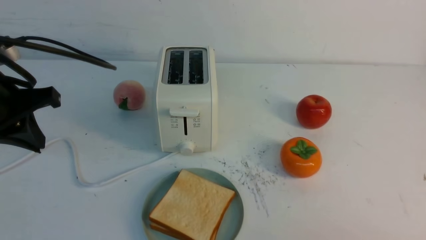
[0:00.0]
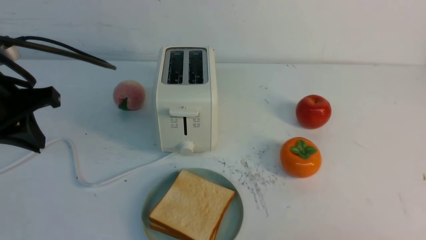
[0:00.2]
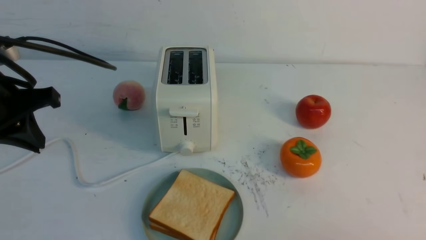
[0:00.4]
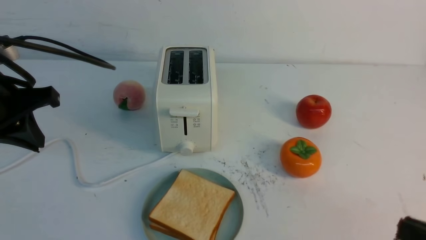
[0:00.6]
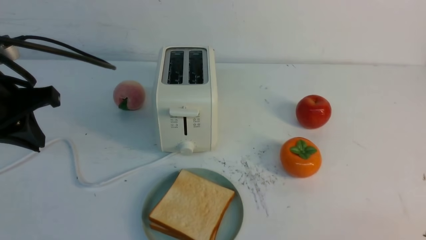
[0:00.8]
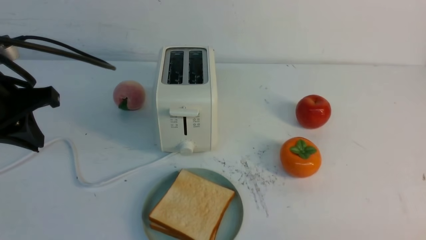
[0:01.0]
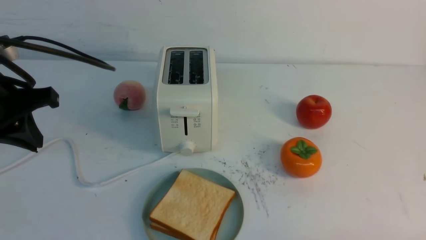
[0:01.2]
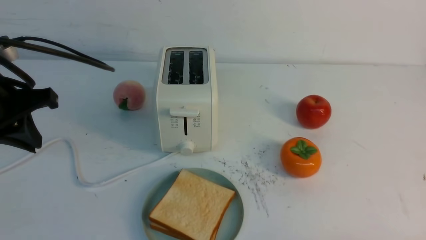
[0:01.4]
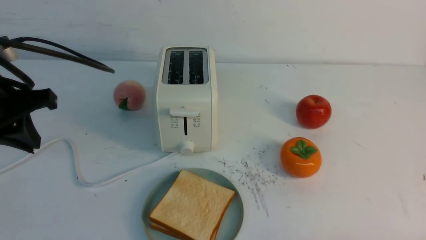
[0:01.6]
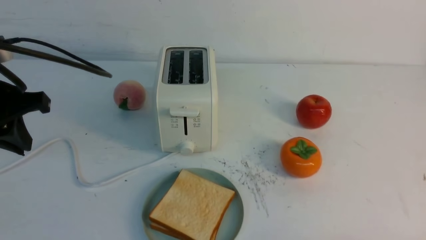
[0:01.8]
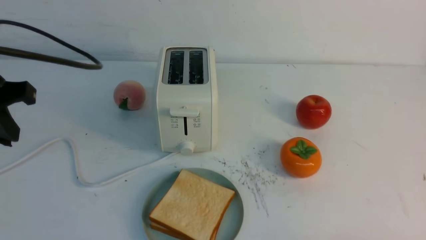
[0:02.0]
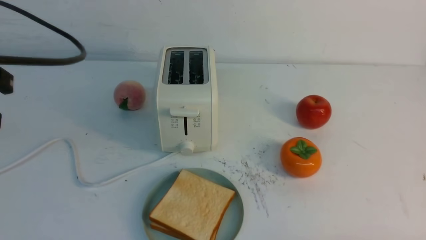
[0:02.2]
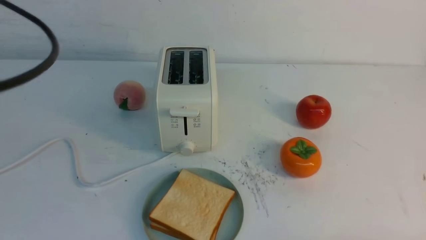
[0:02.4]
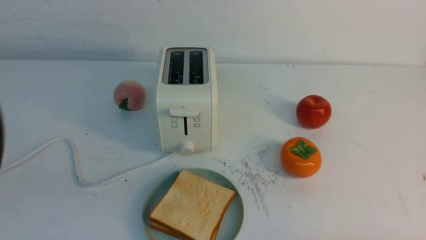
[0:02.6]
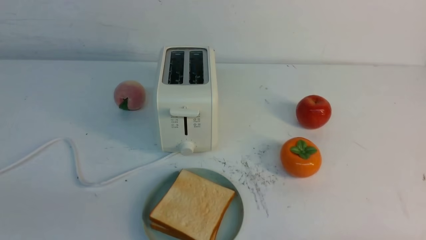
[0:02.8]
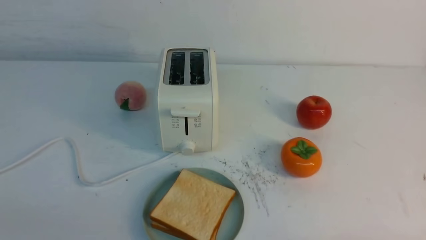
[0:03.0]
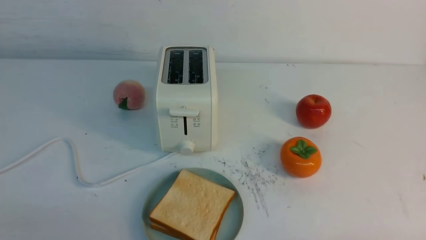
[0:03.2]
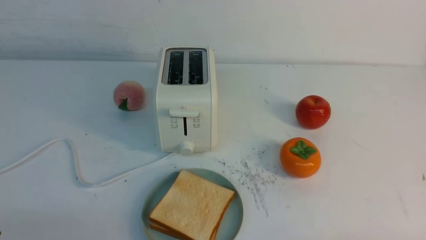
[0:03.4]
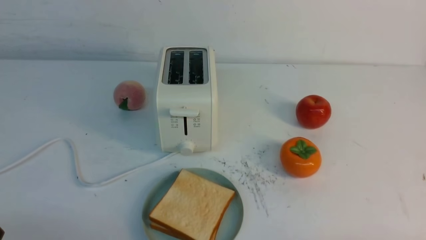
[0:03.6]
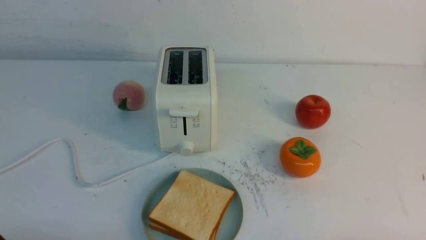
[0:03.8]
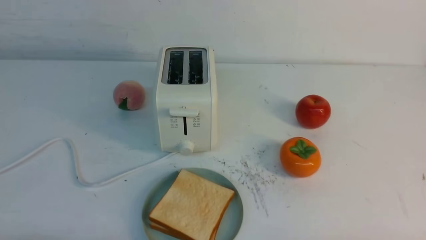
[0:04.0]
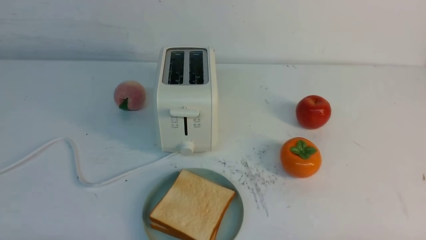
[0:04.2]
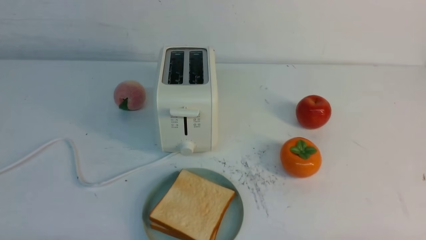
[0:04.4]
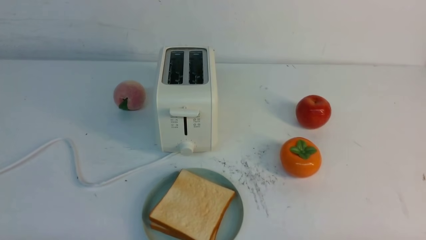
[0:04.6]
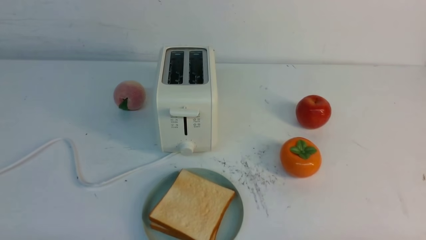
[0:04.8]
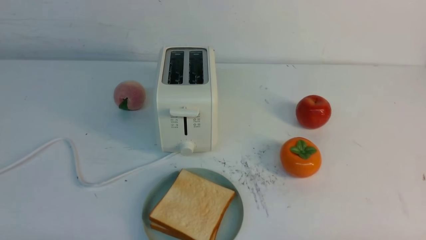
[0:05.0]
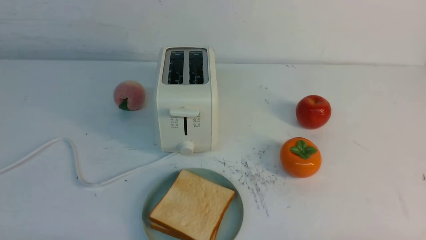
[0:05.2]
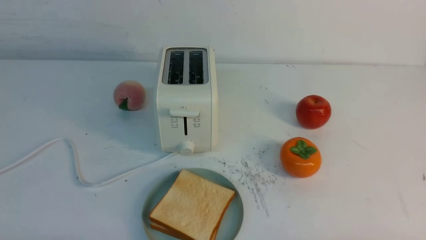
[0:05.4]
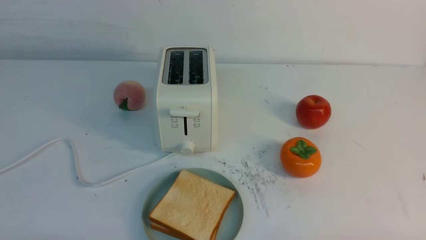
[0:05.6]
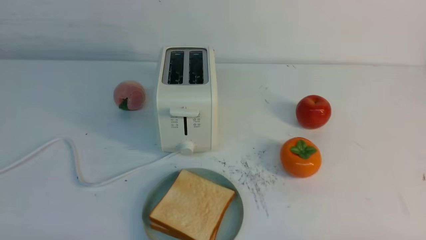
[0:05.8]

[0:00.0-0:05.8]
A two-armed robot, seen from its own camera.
Task of the whole recording: take toasted bread from bread machine on white table place on plate.
0:01.4 to 0:02.8: The left gripper moves backward, about 25 cm.
0:04.4 to 0:05.8: The two grippers keep their place.

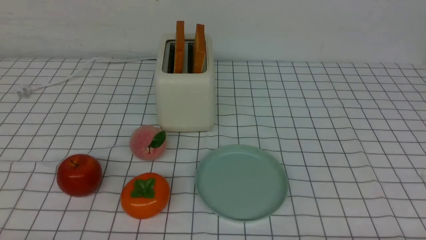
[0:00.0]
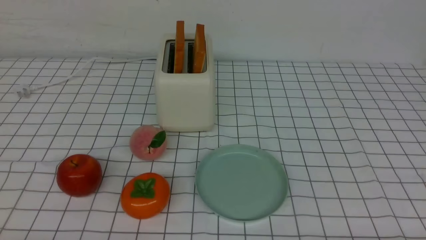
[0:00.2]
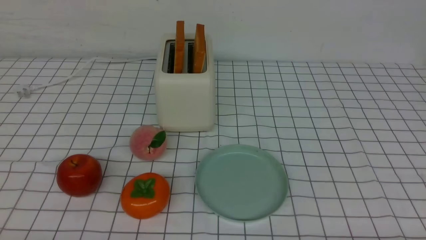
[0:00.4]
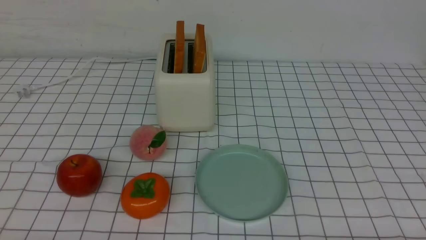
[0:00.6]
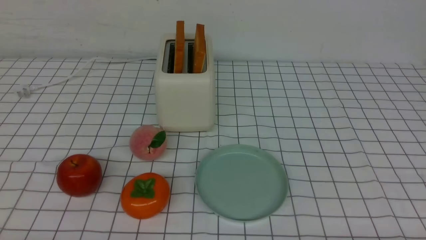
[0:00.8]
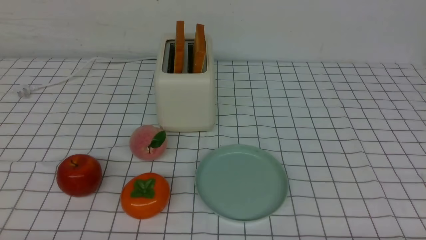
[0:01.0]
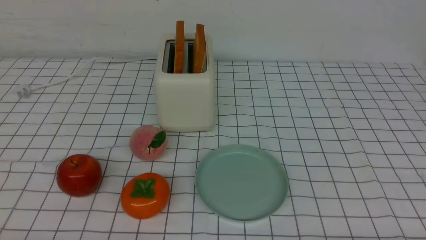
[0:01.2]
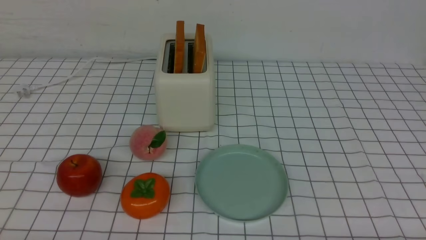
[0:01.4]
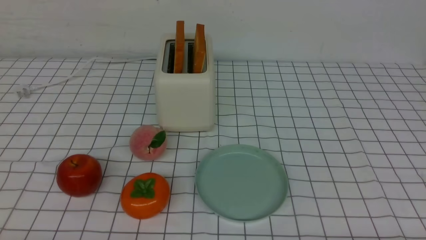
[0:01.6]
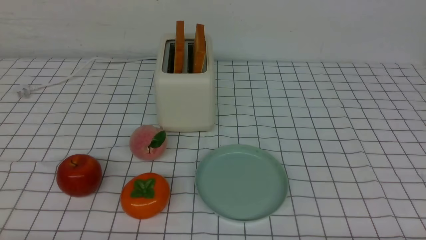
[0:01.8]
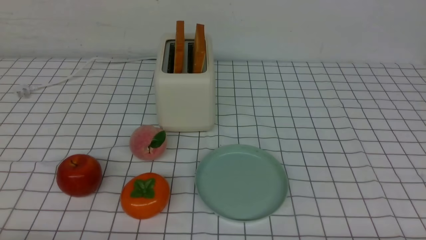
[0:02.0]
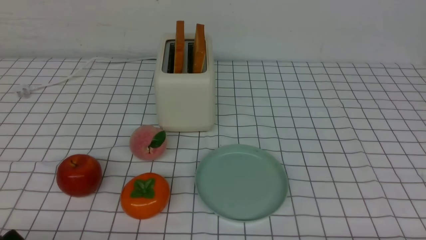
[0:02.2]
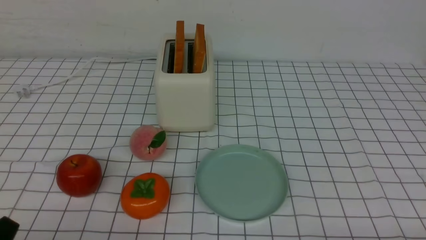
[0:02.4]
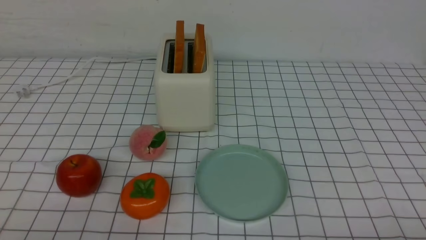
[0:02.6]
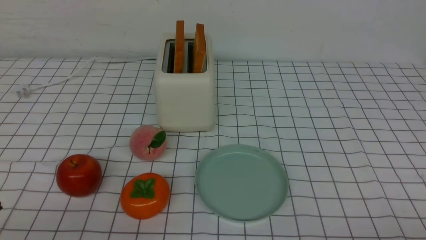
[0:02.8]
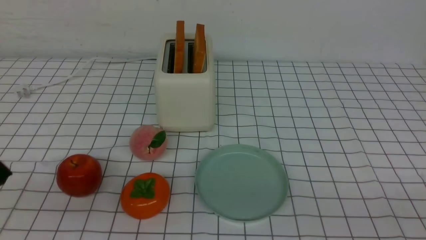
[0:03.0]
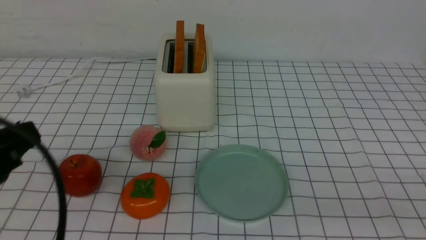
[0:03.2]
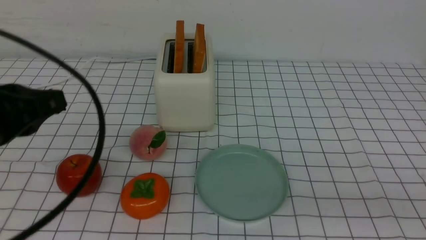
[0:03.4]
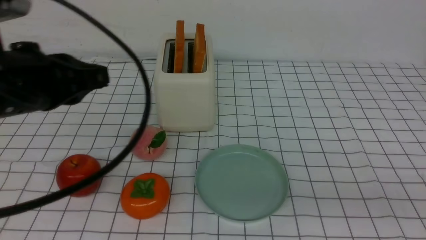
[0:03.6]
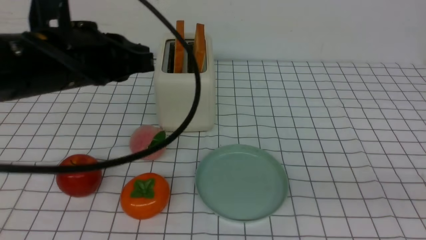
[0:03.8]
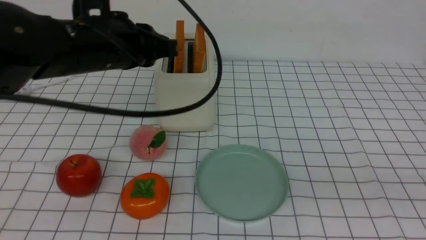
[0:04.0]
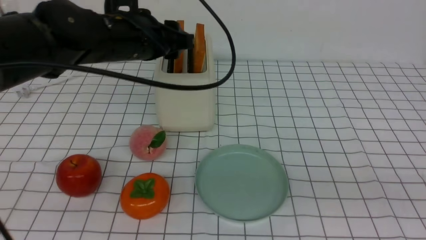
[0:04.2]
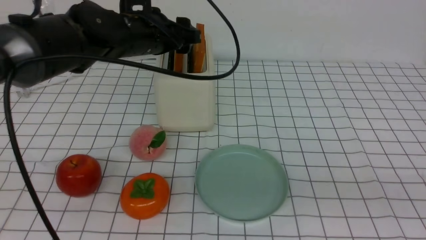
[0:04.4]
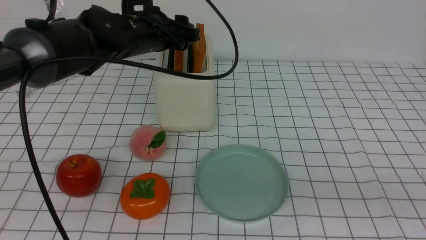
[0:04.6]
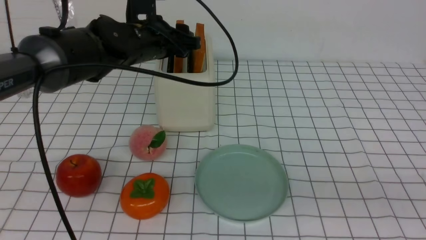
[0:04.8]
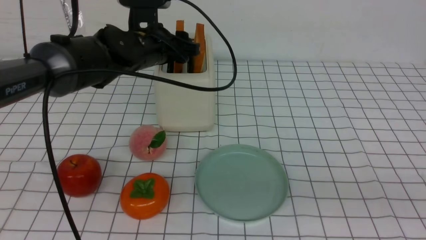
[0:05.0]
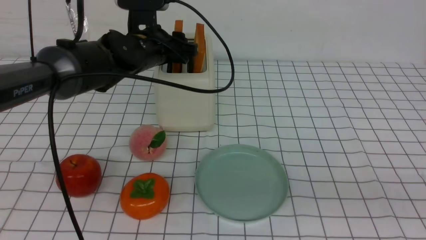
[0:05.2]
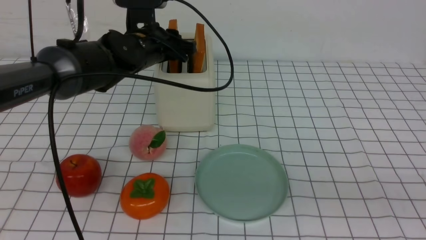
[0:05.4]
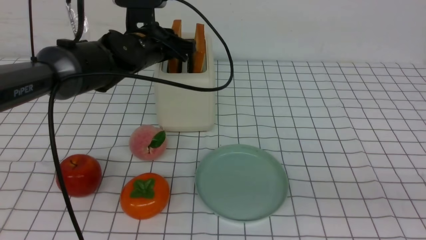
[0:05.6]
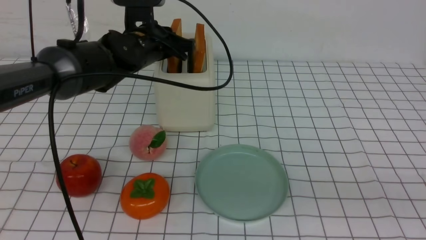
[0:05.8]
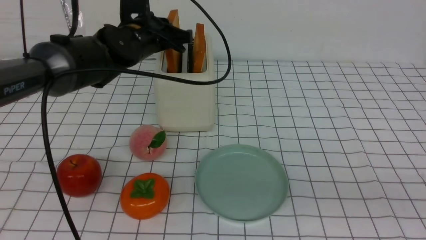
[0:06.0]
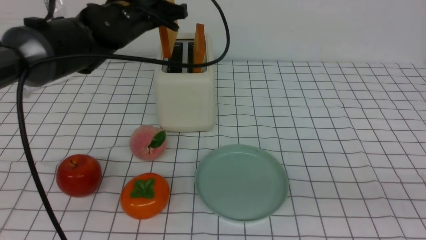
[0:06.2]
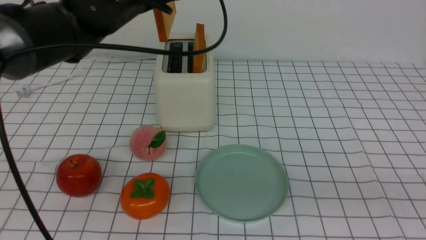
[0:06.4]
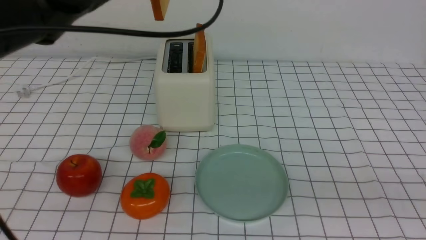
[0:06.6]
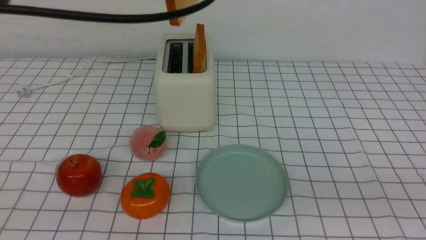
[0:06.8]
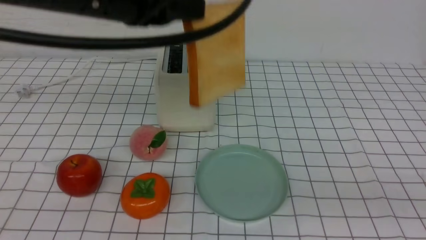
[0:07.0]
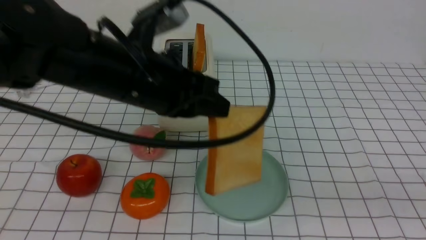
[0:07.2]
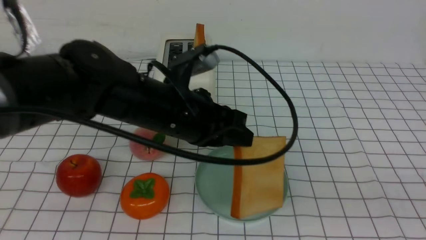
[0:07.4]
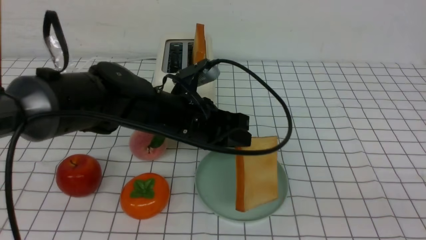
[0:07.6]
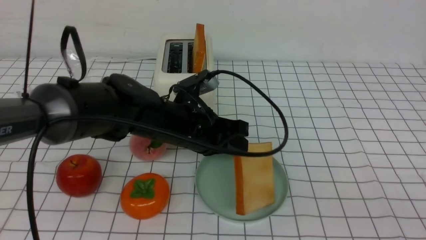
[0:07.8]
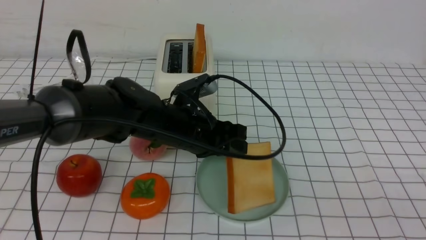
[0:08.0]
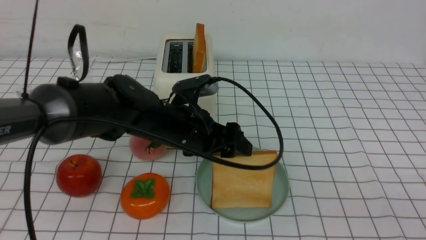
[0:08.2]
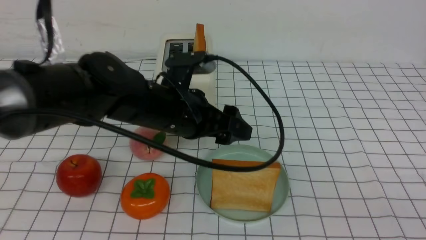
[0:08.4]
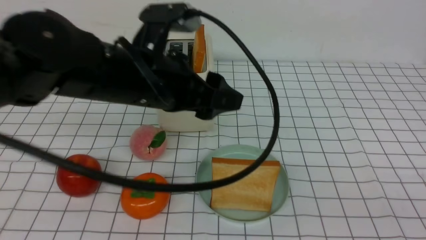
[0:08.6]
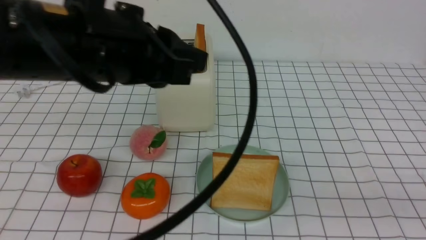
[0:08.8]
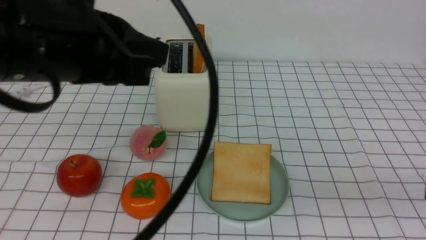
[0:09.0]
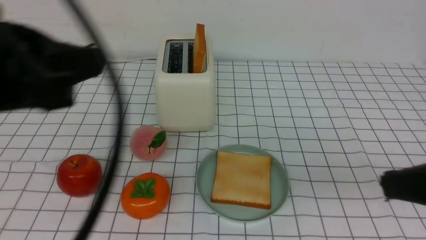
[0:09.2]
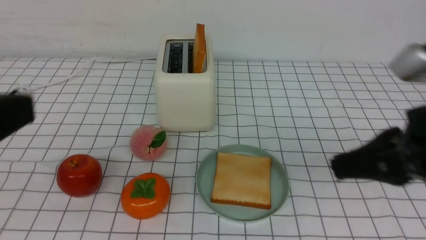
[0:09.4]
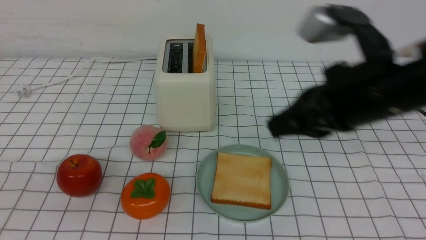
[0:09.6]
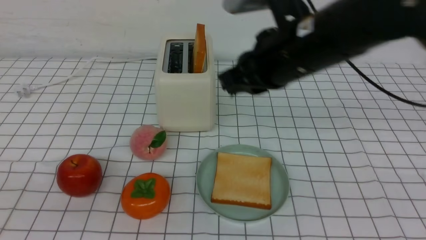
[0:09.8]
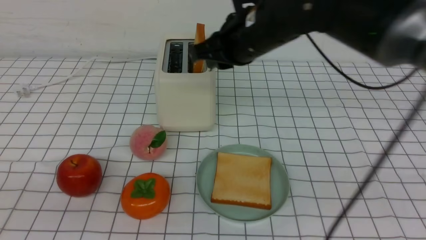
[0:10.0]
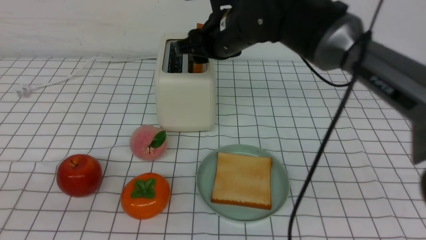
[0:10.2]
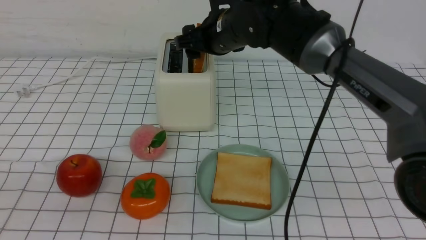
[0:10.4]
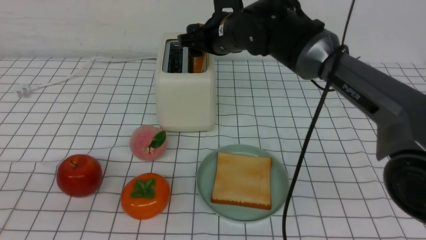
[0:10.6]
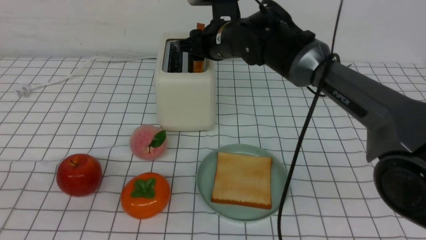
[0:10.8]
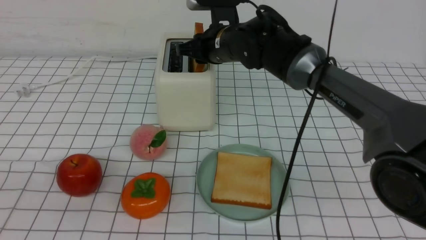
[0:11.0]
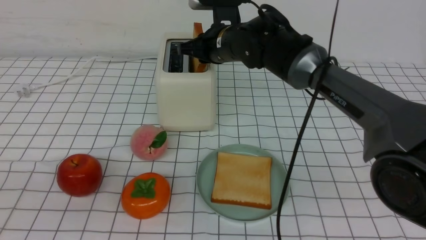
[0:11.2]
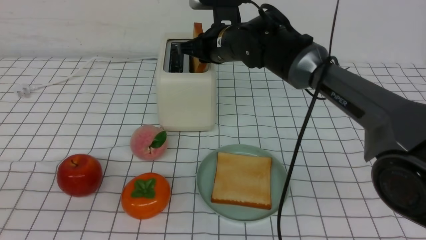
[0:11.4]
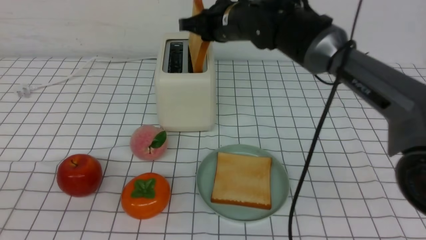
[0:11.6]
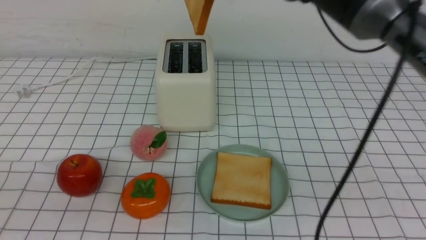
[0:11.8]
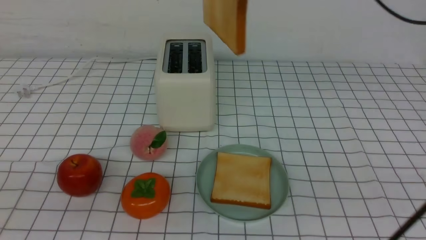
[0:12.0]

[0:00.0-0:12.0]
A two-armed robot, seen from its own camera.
Task of the whole recording: take toasted bread from bread machine on white checkered table place on plate.
Step, 0:00.0 to 0:06.2: use the left arm to take out a slice of bread.
Step, 0:06.4 to 0:08.8: use the left arm to put a slice of bread into the empty plate.
Step, 0:09.2 to 0:11.6: use the right arm to take out a slice of bread.
0:00.0 to 0:01.6: Both grippers stay about where they are.
0:01.6 to 0:03.0: The left gripper heads upward, covering some 10 cm, and closes.
0:03.0 to 0:04.4: The right gripper heads upward, covering about 10 cm. Meanwhile the left gripper travels forward by about 35 cm, and opens up.
0:04.4 to 0:06.0: The left gripper closes up.
0:06.0 to 0:07.6: The right gripper ends up approximately 5 cm from where it was. Meanwhile the left gripper travels backward and to the right by some 15 cm, and reaches about 10 cm upward, then returns.
0:07.6 to 0:09.0: The right gripper shifts about 5 cm forward. The left gripper goes approximately 25 cm upward, backward and to the left, and opens and closes again.
0:09.0 to 0:10.4: The left gripper is displaced backward, to the left and downward by roughly 20 cm. Meanwhile the right gripper heads forward and to the left, covering some 40 cm, and opens up.
0:10.4 to 0:12.0: The right gripper shifts some 20 cm upward and backward, and closes up.
